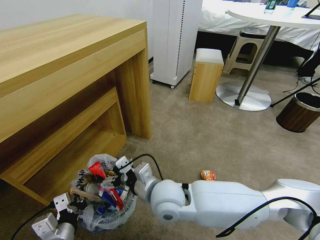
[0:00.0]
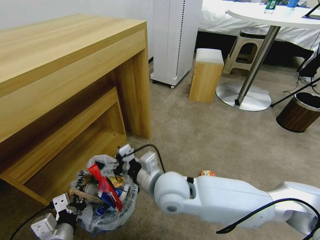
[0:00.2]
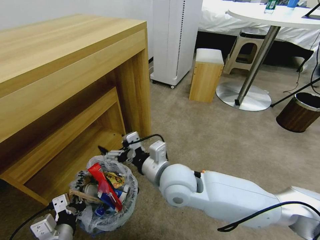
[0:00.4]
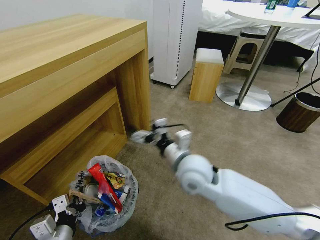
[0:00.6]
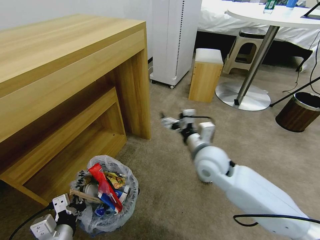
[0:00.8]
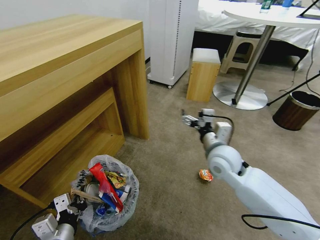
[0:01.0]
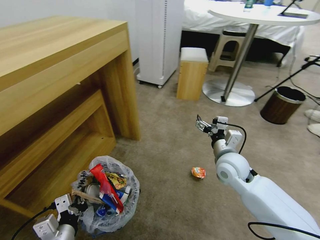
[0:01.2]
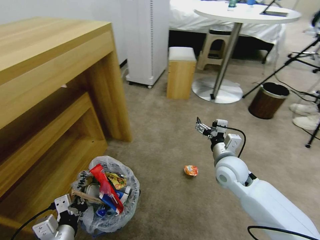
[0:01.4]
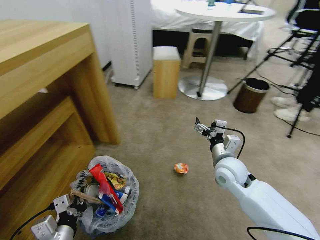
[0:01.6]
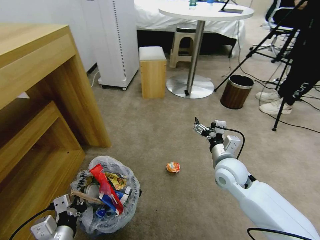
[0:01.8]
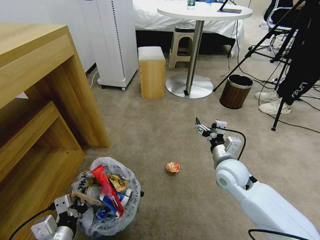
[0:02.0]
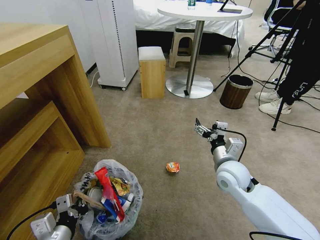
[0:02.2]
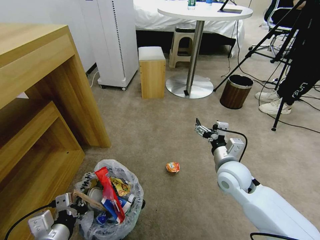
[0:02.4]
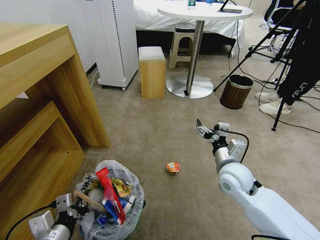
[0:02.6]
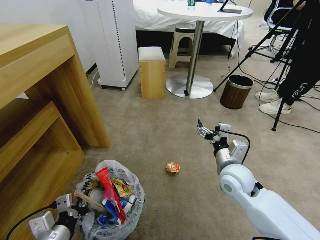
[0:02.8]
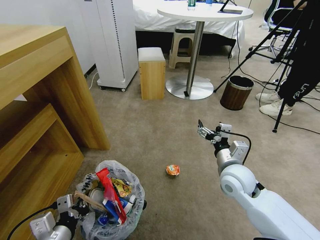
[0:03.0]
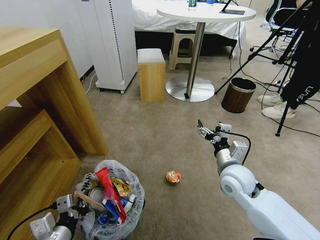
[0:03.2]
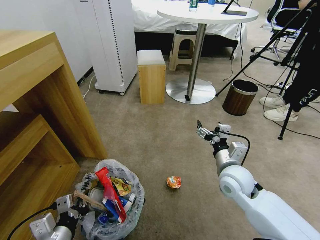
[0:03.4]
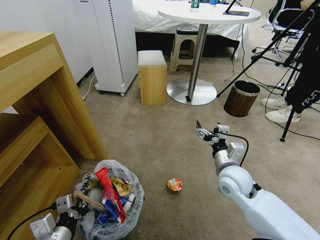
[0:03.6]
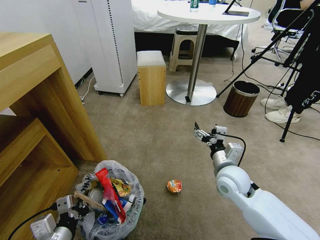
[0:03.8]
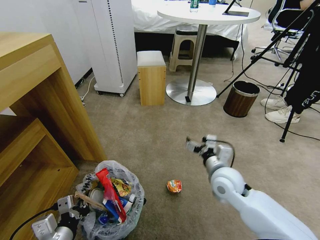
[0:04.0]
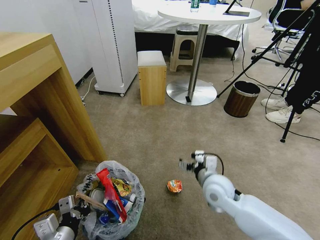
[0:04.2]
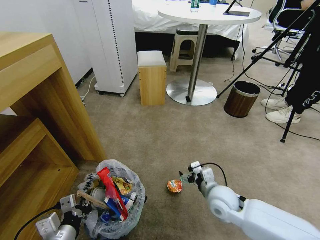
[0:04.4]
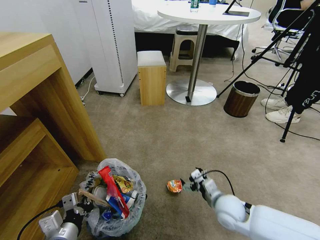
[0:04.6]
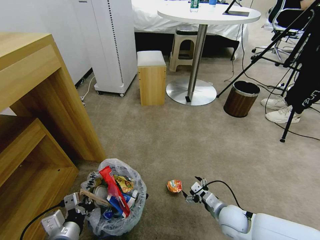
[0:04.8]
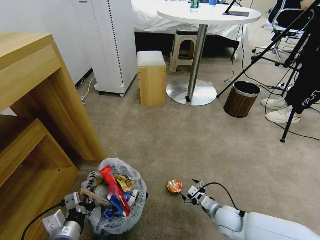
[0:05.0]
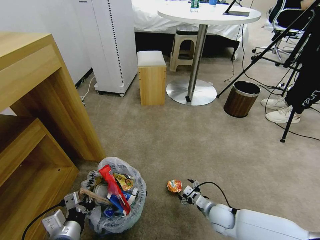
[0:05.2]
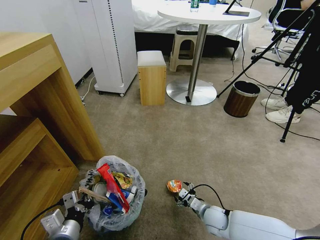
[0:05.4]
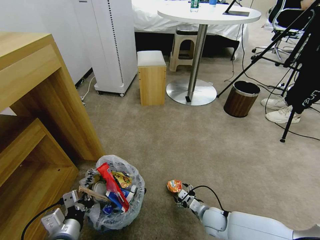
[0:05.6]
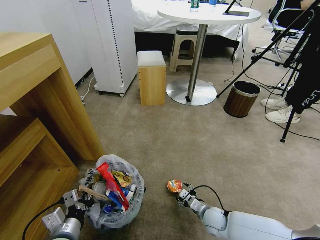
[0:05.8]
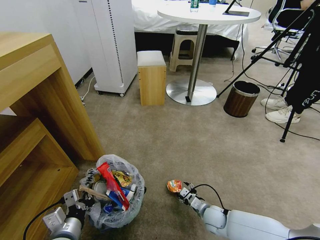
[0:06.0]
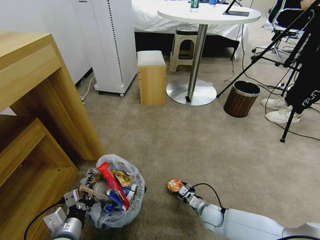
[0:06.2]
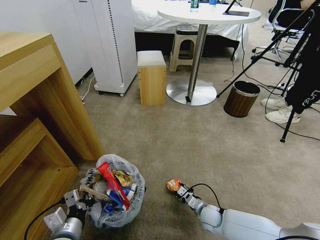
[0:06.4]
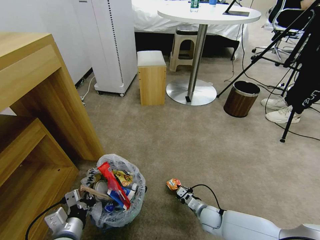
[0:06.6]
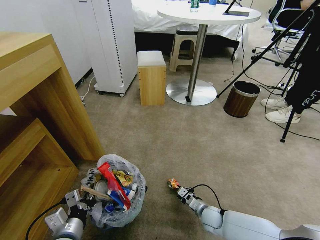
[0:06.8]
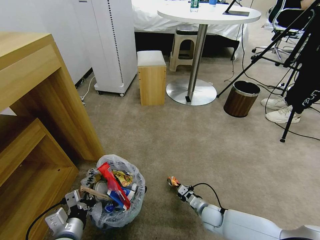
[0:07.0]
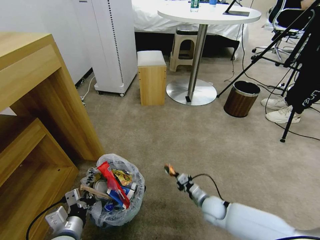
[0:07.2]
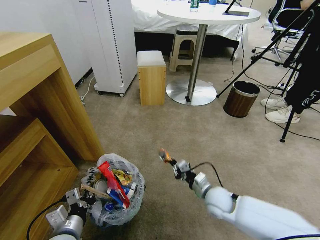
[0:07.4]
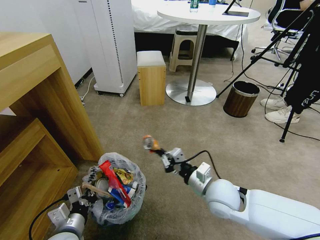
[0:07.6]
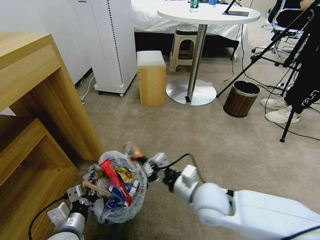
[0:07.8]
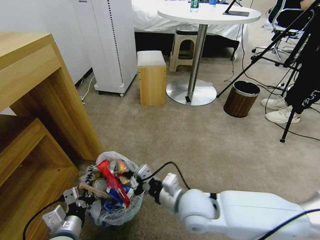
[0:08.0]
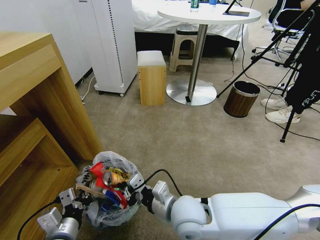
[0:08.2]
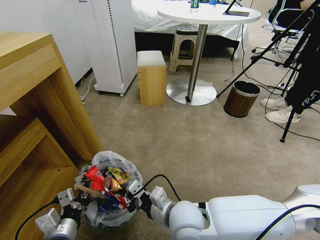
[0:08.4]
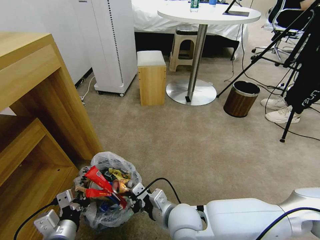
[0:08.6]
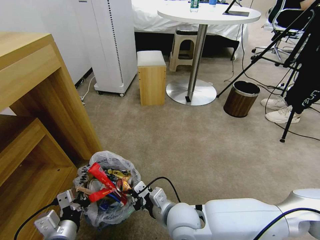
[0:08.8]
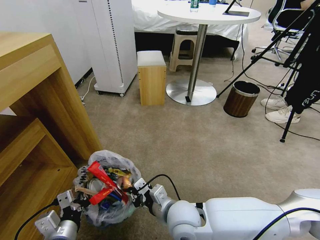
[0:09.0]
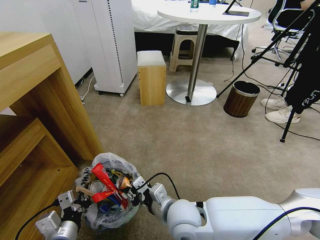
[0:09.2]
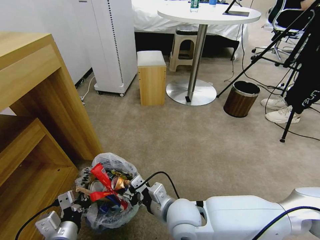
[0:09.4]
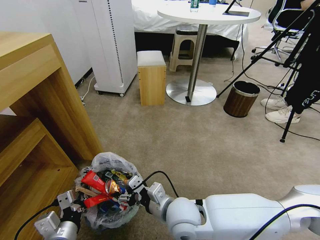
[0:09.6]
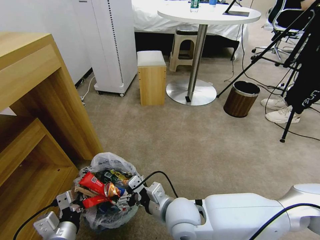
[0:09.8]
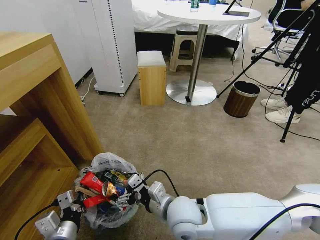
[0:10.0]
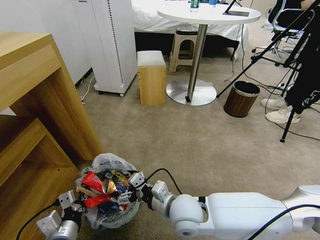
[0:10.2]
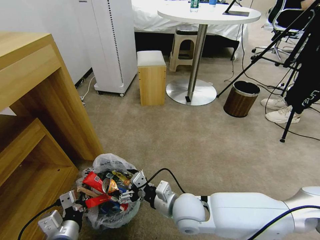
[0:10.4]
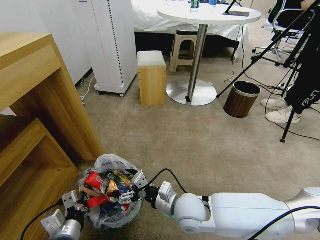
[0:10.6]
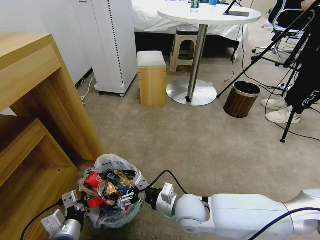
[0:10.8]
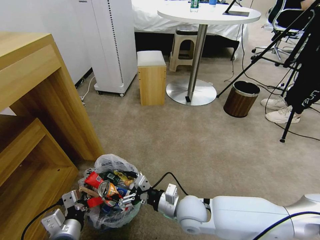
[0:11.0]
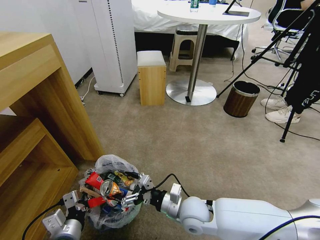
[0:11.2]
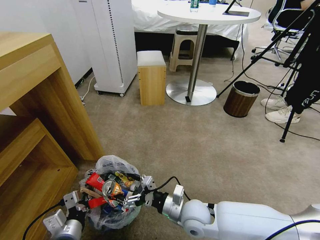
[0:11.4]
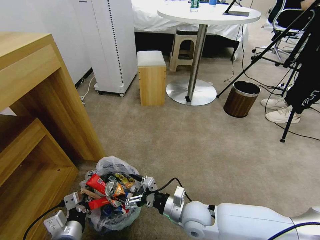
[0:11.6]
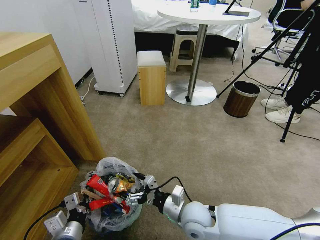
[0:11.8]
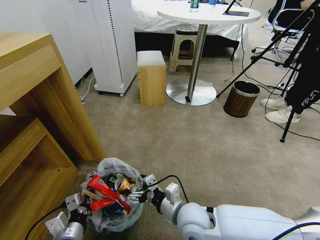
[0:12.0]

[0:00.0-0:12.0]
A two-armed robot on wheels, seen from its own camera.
Task of the whole recording: Pick up the trash bin and place the garbage on the floor into it.
0:00.0 to 0:01.6: The right gripper shifts about 25 cm to the right and forward.
0:03.0 to 0:04.4: The right gripper moves downward, about 10 cm.
0:04.4 to 0:06.0: The right gripper goes roughly 20 cm downward.
0:06.0 to 0:07.6: The right gripper travels upward by roughly 20 cm, and closes its fingers.
0:07.6 to 0:09.0: The right gripper travels to the left and backward by about 15 cm.
0:09.0 to 0:10.4: The right gripper opens up.

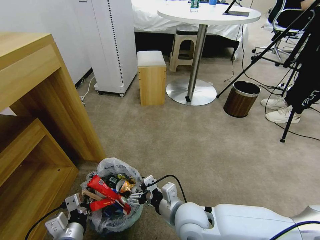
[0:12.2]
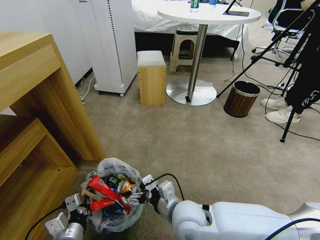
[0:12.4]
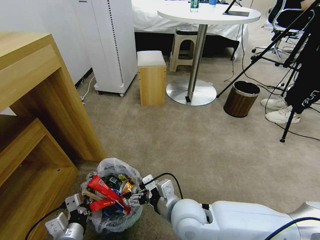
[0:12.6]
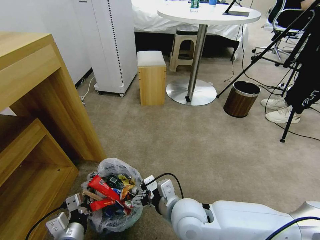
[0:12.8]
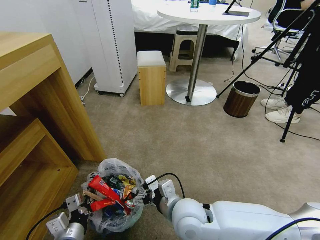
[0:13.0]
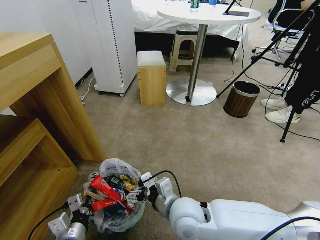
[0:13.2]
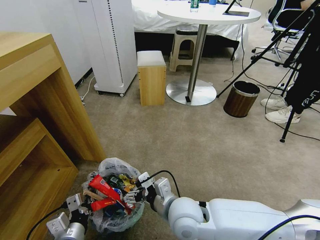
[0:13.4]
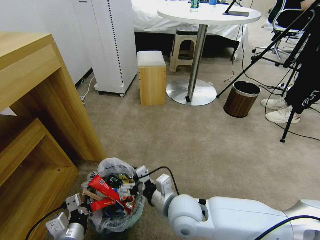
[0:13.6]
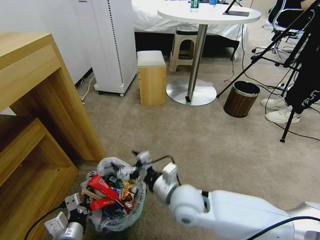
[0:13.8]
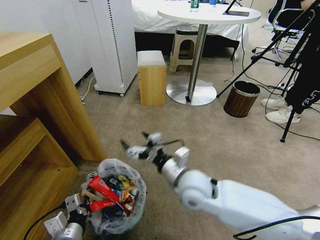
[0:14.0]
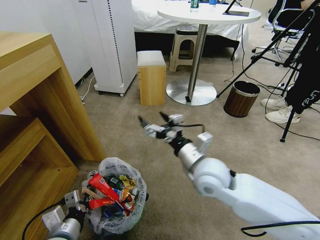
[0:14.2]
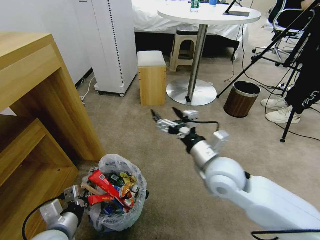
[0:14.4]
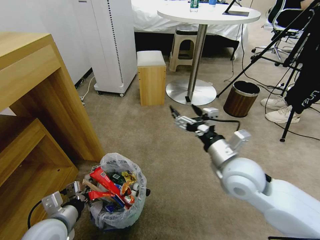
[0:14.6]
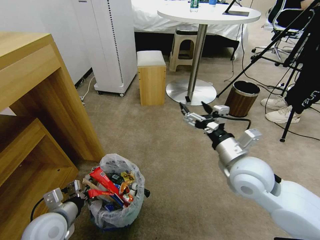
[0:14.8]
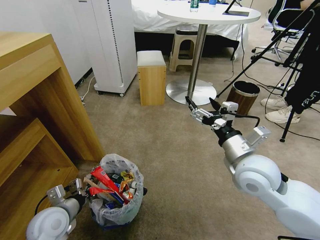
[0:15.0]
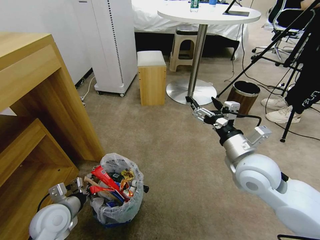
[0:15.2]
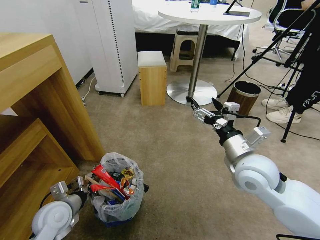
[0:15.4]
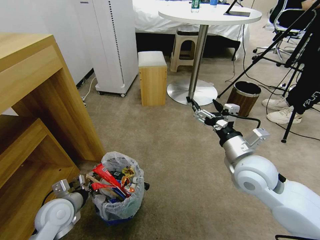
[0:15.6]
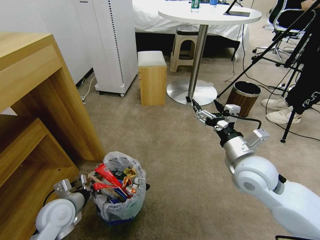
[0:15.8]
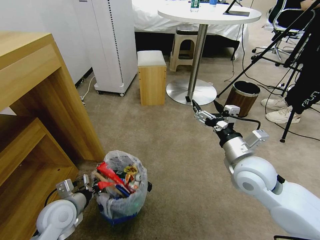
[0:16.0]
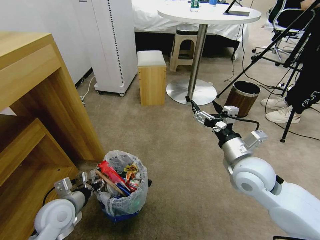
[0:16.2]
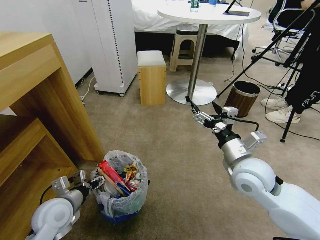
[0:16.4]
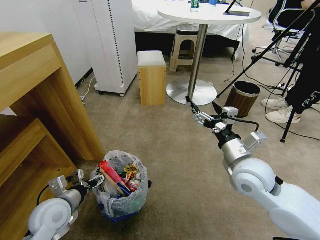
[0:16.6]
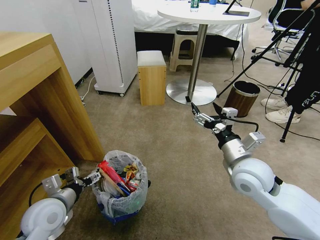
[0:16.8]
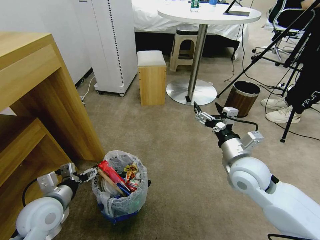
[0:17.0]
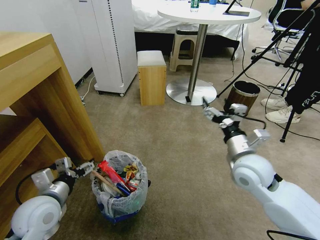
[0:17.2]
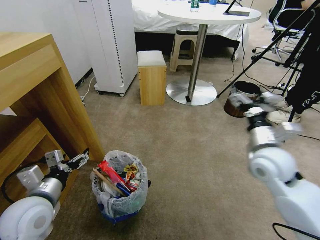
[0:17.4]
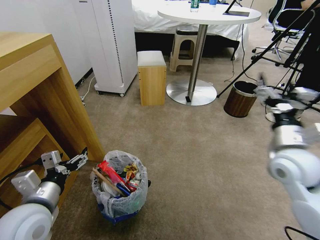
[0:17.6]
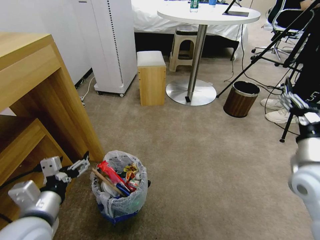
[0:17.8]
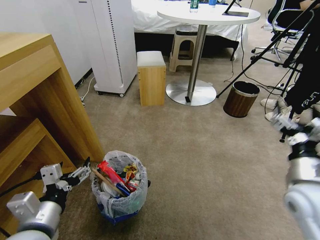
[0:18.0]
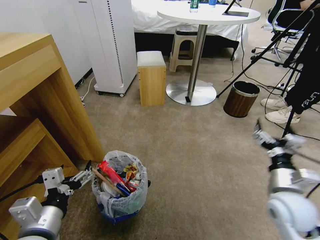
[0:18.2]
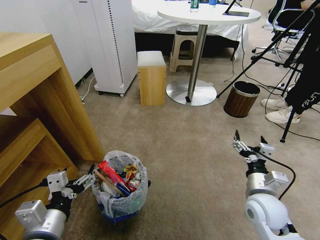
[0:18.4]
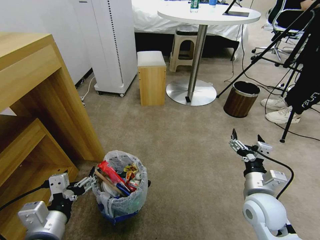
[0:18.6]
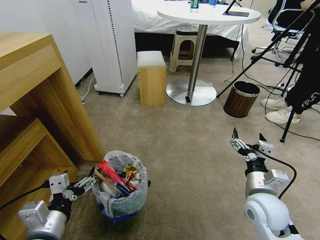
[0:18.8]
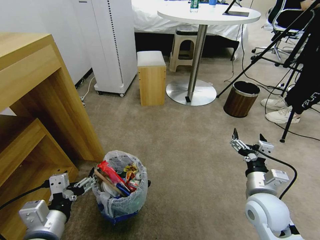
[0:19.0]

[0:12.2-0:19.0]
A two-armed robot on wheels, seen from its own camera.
Task of the whole recording: Pick up the trash bin and place the garbage on the floor into it.
0:12.2 to 0:13.6: The grippers stay close to where they were, moving slightly.
0:13.6 to 0:15.0: The left gripper is displaced forward and to the left by about 10 cm, while the right gripper moves to the right and upward, approximately 20 cm.
0:15.0 to 0:16.2: The left gripper opens.
0:16.2 to 0:17.6: The right gripper moves to the right, some 10 cm, while the left gripper is displaced upward by roughly 10 cm, and opens up.
0:17.6 to 0:19.0: The right gripper travels downward, backward and to the left by some 15 cm, while the left gripper is displaced backward by about 5 cm.
